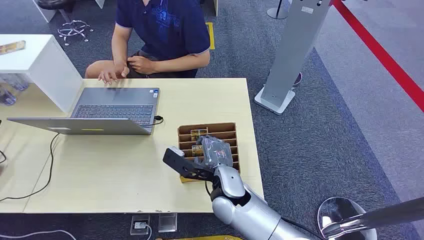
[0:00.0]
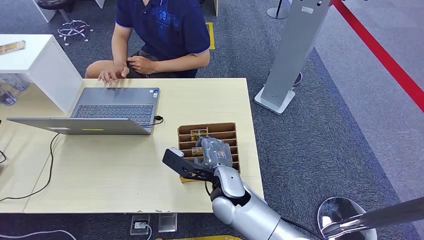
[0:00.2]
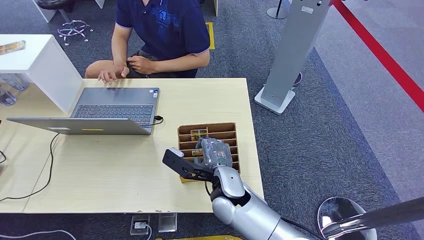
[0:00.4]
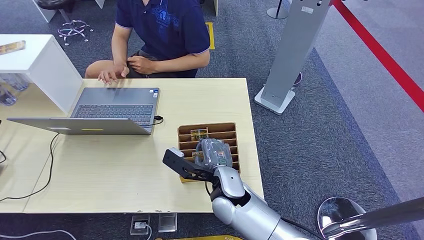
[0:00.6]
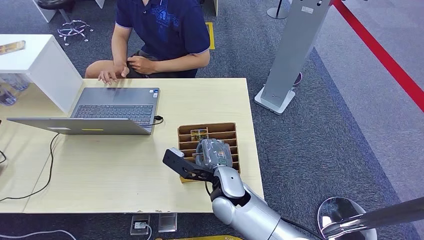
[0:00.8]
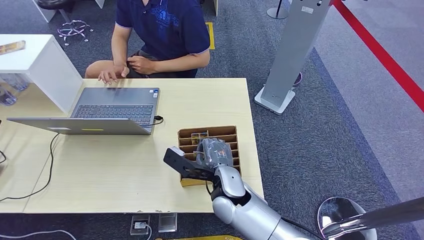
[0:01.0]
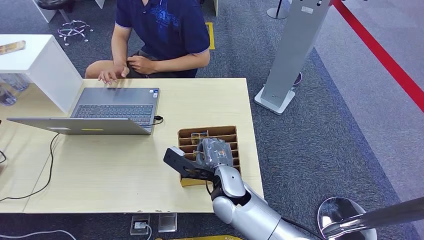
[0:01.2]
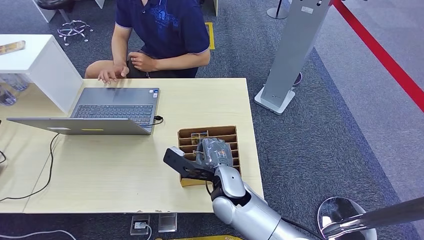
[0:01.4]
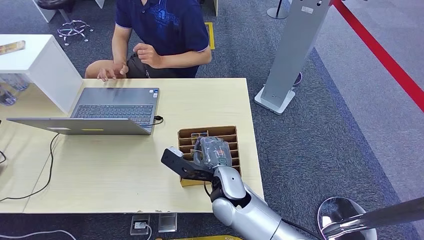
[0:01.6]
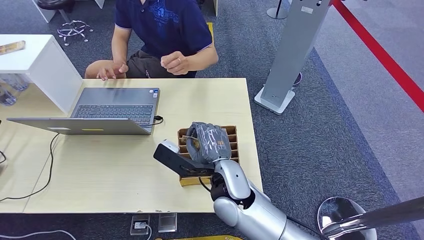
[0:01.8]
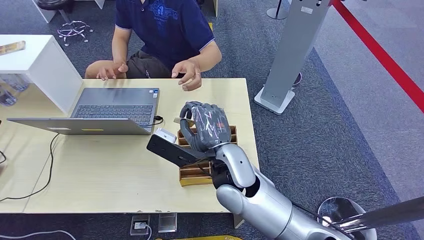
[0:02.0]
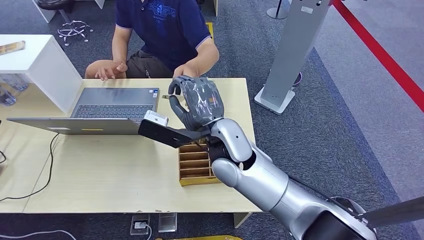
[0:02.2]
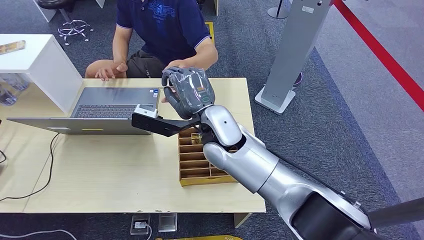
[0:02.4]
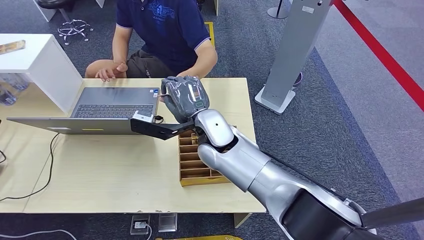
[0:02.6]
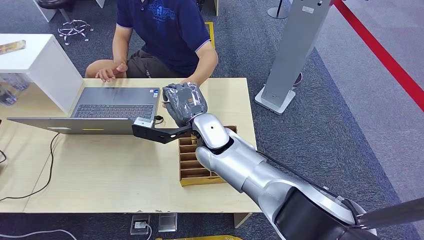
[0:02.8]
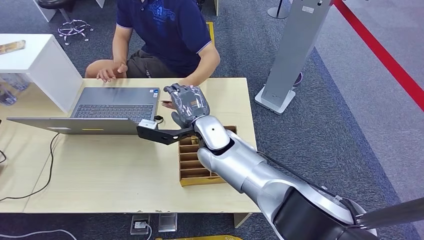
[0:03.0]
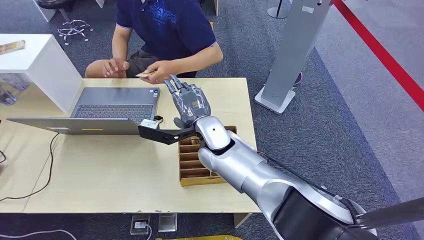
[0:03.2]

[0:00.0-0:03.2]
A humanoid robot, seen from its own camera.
Task of the whole recording: Pick up the card and hand it over to the target person.
Step, 0:00.0 to 0:01.8: Pick up the key card from the card box.
Step, 0:02.4 to 0:03.0: Hand the key card to the target.
0:01.6 to 0:03.2: The right hand shifts approximately 10 cm forward.
